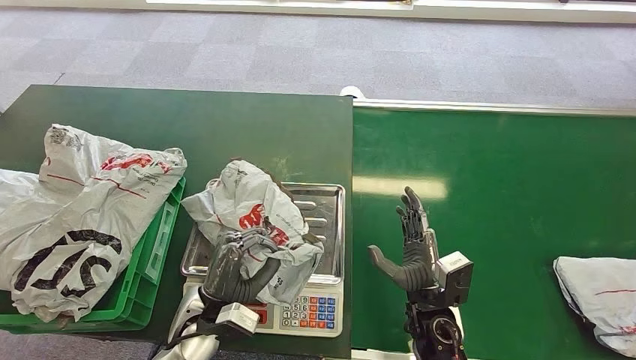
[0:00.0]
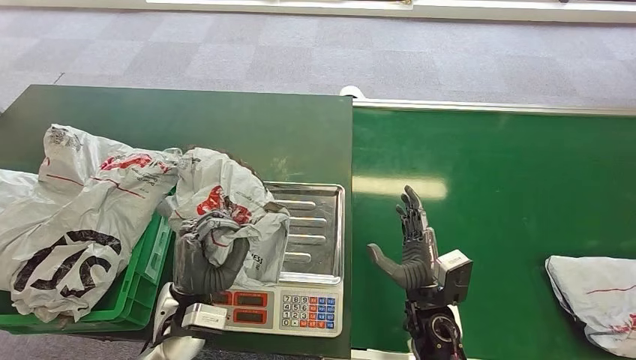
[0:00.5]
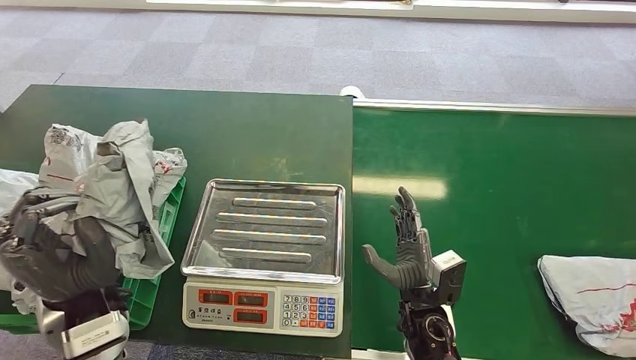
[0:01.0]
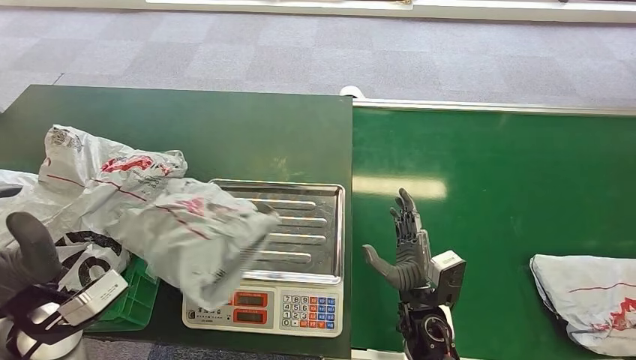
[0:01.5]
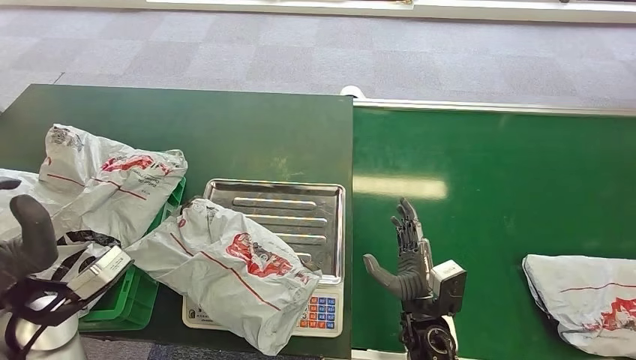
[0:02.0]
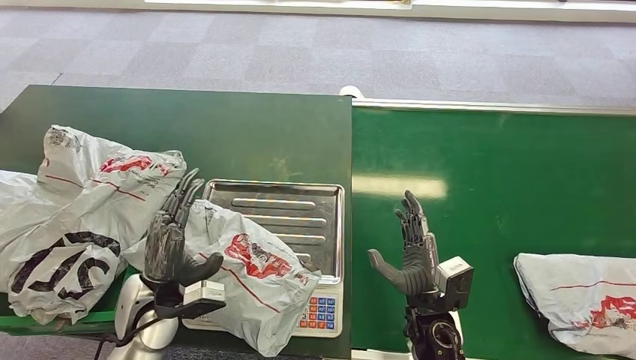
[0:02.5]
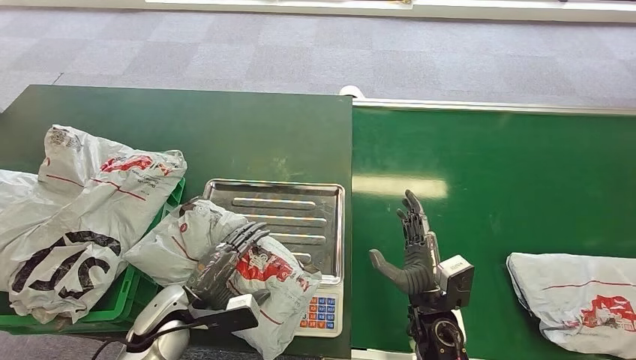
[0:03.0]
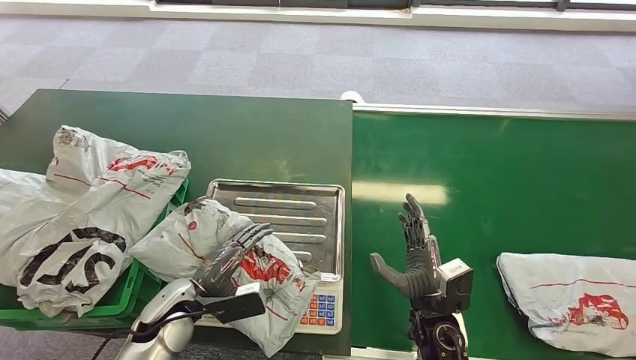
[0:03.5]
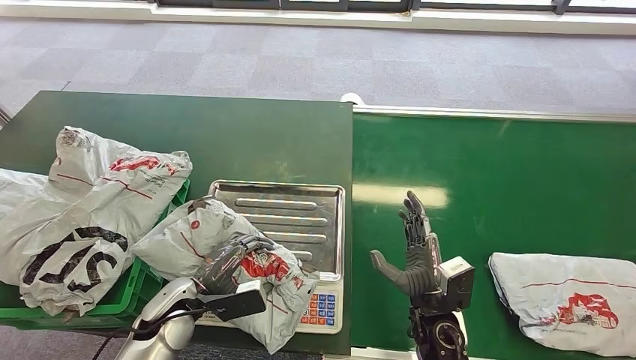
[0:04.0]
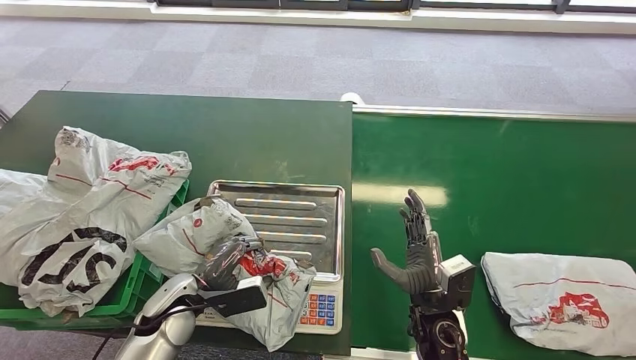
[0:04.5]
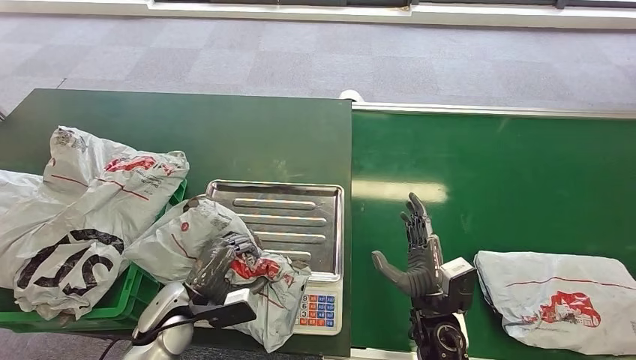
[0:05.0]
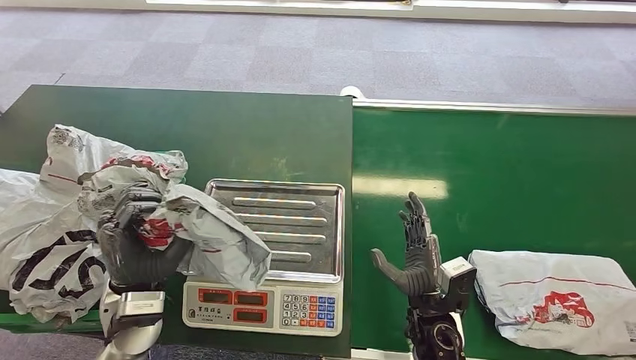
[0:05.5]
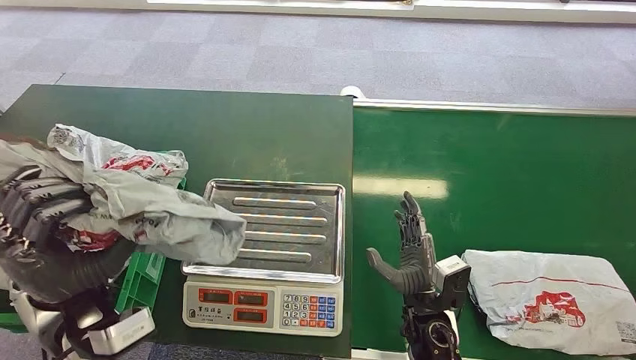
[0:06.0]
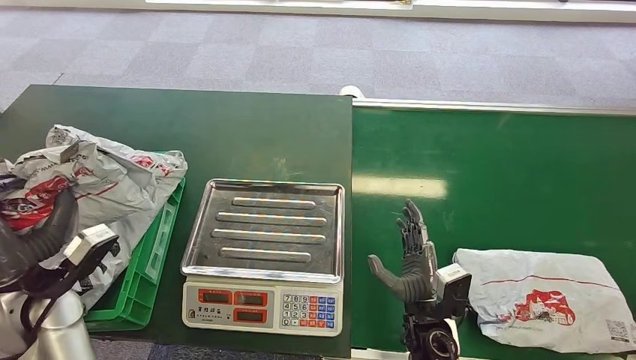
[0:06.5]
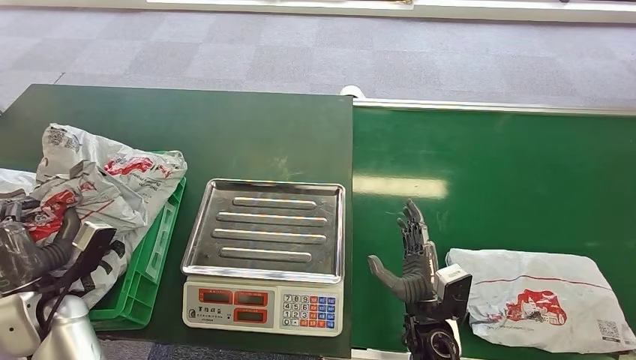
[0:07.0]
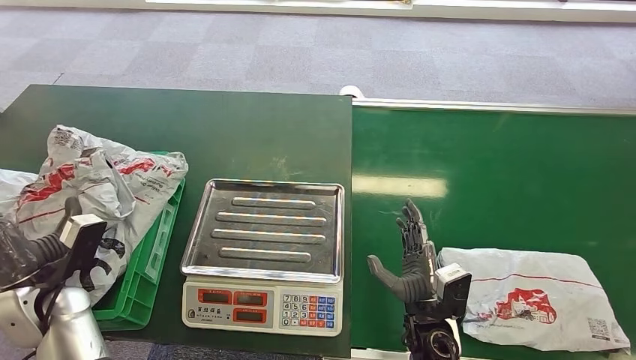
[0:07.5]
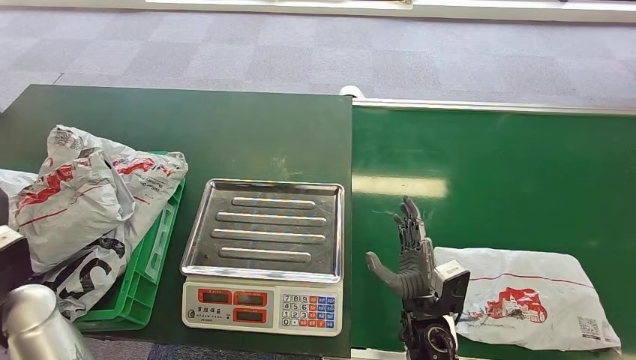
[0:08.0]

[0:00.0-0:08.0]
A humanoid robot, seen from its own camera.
Step, 0:04.0 to 0:05.5: Pick up the package from the inbound machine.
Step, 0:06.5 to 0:08.0: Place the package into the parcel locker.
0:00.0 to 0:02.0: The left hand heads upward and to the left, covering some 25 cm.
0:06.0 to 0:08.0: The left hand heads to the left, covering about 10 cm.
